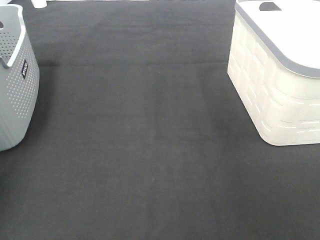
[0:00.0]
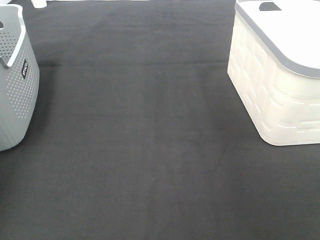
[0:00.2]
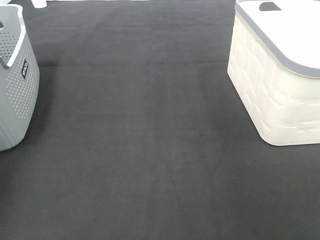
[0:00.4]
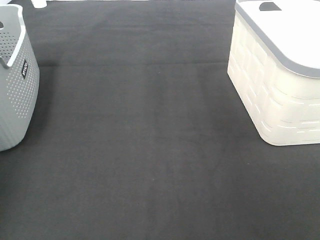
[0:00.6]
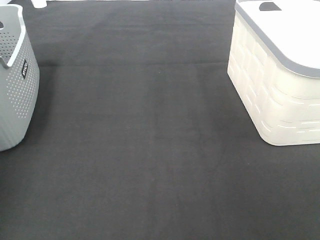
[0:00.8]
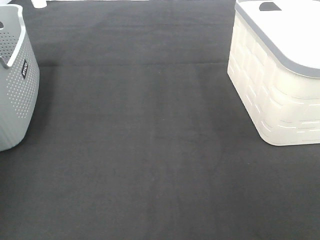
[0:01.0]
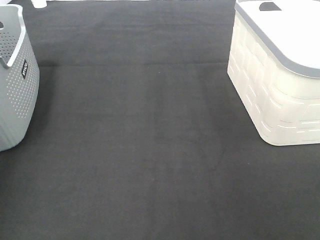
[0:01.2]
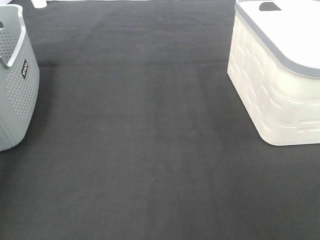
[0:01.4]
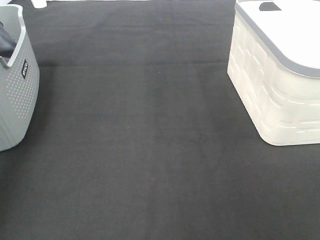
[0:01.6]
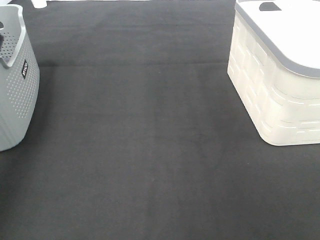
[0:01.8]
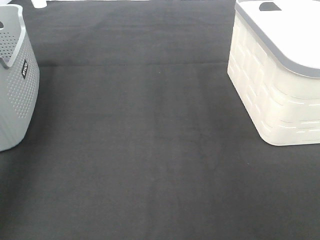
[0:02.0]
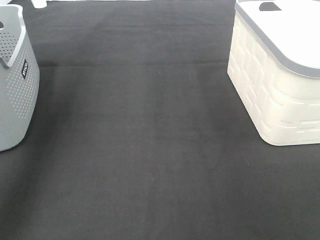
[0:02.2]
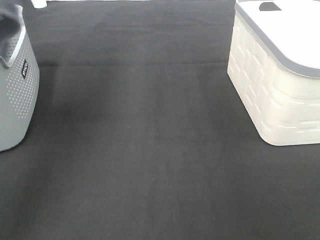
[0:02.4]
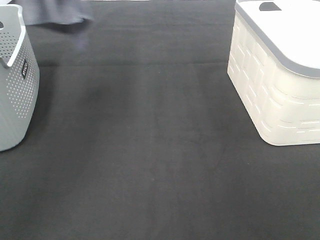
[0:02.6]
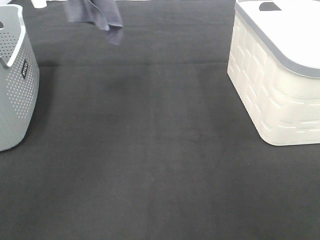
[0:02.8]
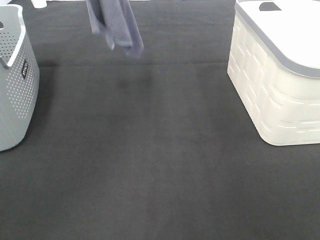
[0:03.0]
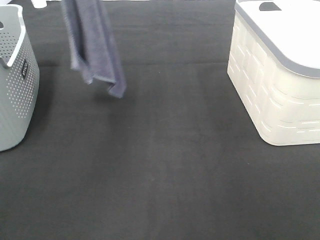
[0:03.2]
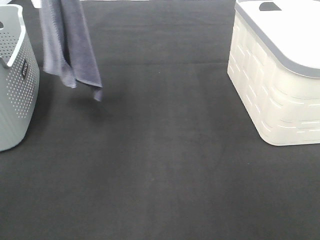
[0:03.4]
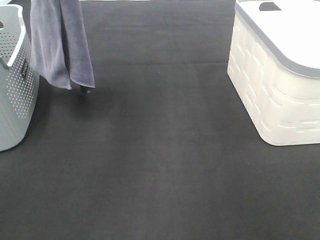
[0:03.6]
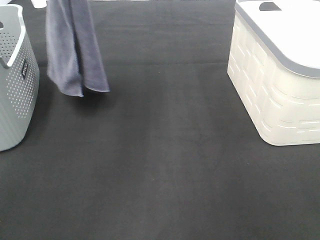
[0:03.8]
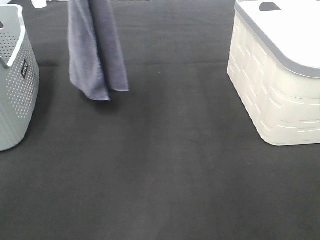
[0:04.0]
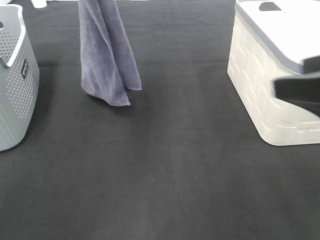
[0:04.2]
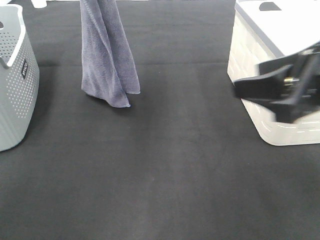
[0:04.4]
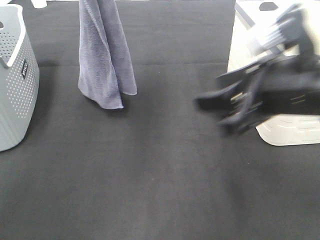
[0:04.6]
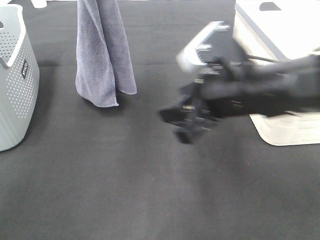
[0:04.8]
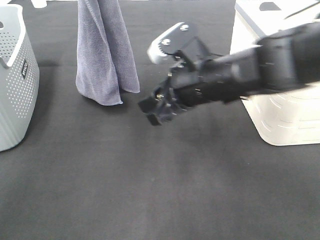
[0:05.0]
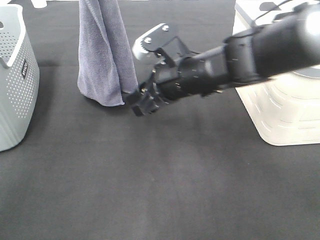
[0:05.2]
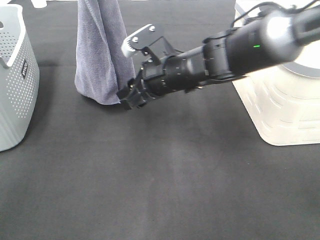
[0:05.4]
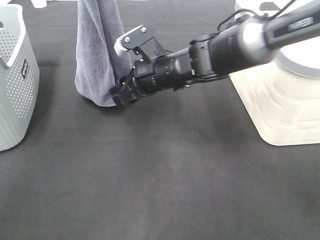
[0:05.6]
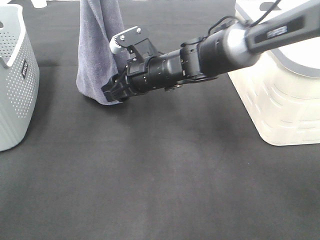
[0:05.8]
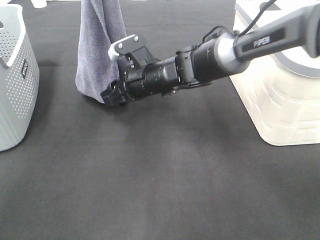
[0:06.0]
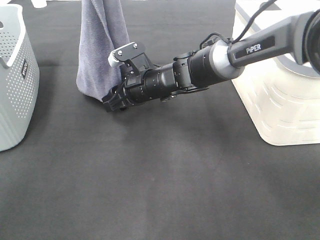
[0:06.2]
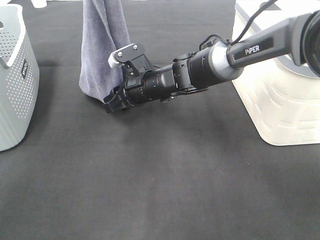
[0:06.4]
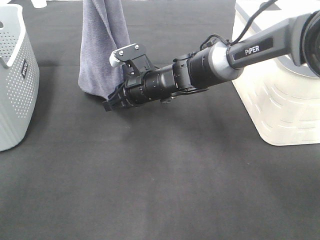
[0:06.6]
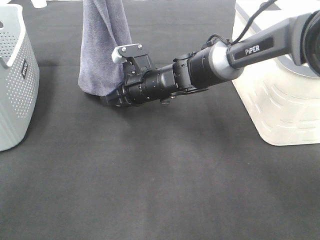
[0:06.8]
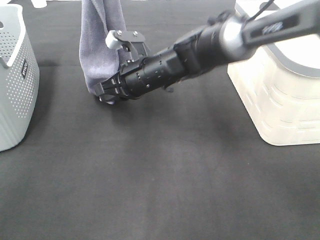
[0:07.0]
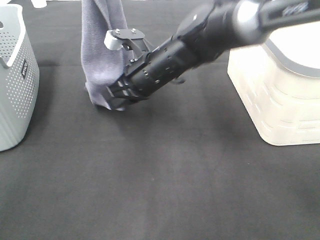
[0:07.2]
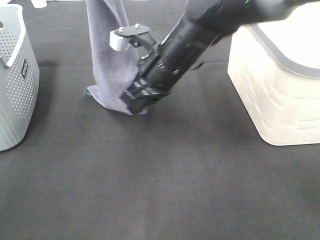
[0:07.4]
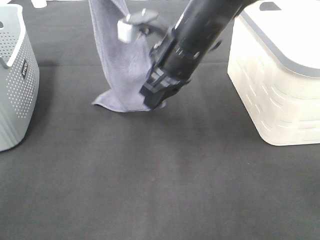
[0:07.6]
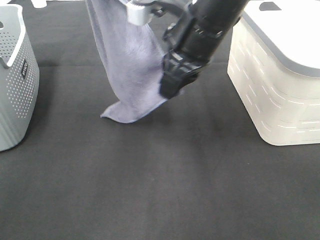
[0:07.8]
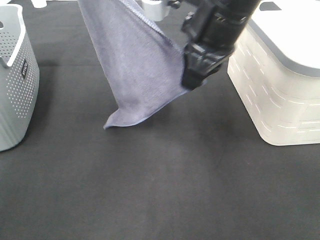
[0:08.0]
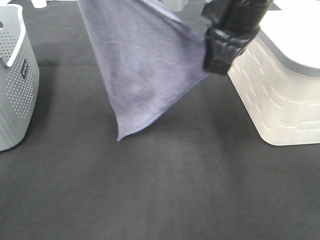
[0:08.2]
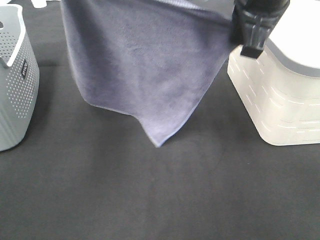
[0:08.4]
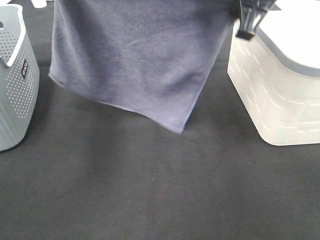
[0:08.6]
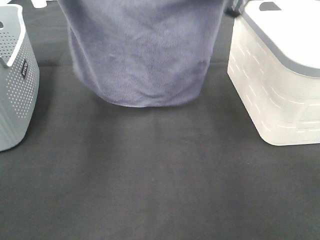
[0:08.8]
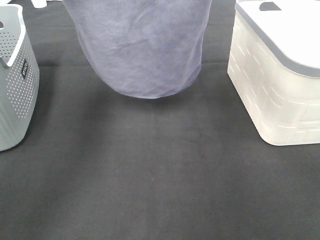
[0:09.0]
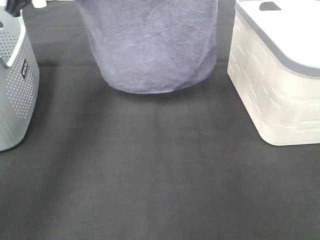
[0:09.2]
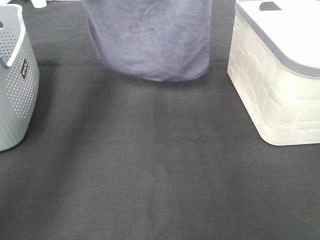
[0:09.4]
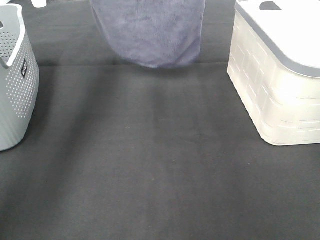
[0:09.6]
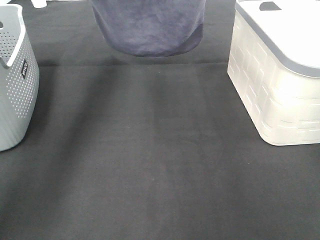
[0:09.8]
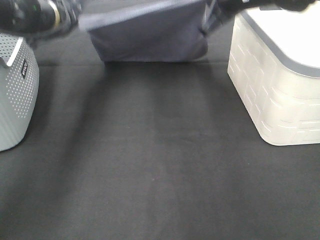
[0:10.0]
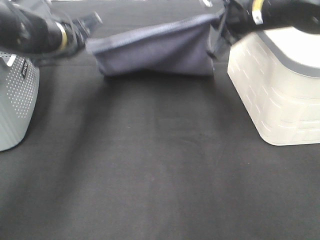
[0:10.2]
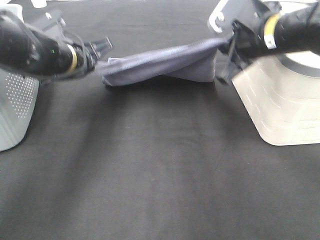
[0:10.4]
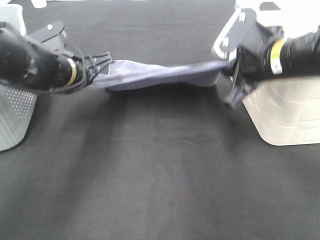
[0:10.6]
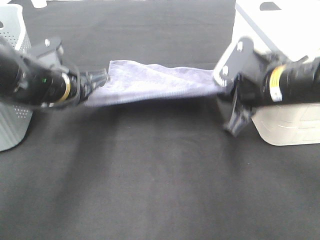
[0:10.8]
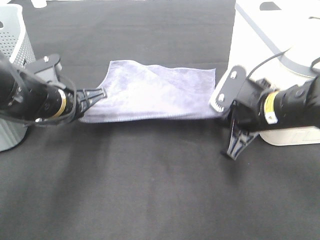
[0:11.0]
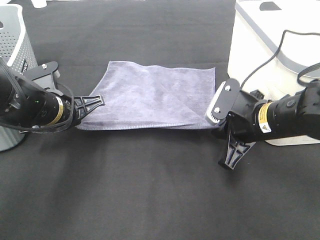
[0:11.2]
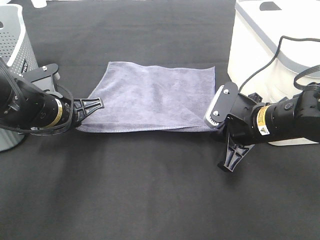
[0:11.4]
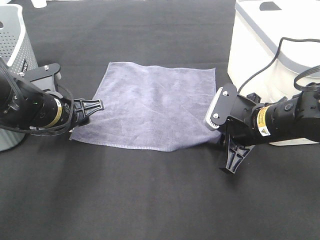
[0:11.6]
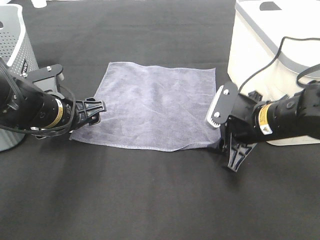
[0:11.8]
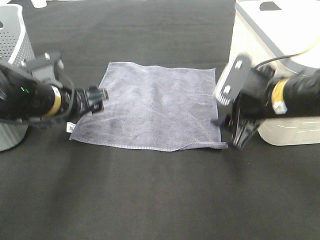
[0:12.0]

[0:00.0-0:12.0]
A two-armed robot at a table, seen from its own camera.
Task of the whole recording: Remove the towel and place it.
Step, 0:02.0 to 0:05.4: Right hand: grab a corner of the grey towel and straighten it.
Step, 0:05.6 to 0:07.8: Left hand: spread the grey towel flat on the table.
Step, 0:05.6 to 0:07.8: Right hand: spread the grey towel flat on the table.
0:00.0 to 0:01.6: The left gripper goes roughly 35 cm upward and backward.
0:01.6 to 0:03.0: The left gripper travels to the right by approximately 20 cm.
0:03.0 to 0:04.4: The left gripper moves downward and to the right, approximately 10 cm; the right gripper moves forward and to the left, approximately 20 cm.
0:04.4 to 0:06.0: The right gripper goes roughly 35 cm forward, to the left and downward.
0:06.0 to 0:07.6: The right gripper shifts approximately 15 cm upward and backward, and closes.
0:07.6 to 0:09.0: The right gripper travels upward and to the right by some 15 cm, while the left gripper heads downward and to the left, covering some 10 cm.
0:09.0 to 0:10.4: Both grippers travel together downward, some 15 cm.
0:10.4 to 0:12.0: Both grippers travel together backward, roughly 5 cm. The right gripper opens up. The left gripper opens up.

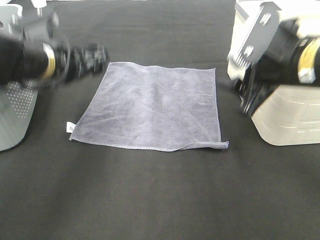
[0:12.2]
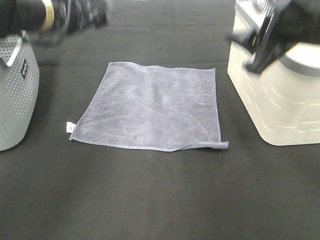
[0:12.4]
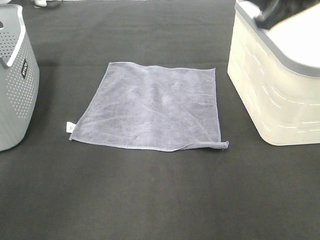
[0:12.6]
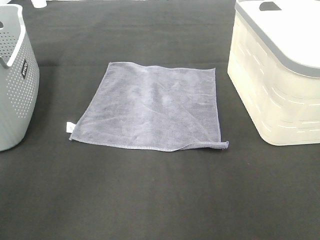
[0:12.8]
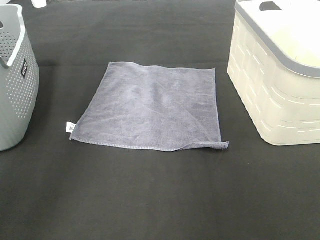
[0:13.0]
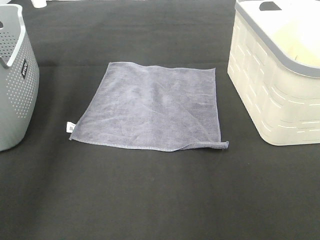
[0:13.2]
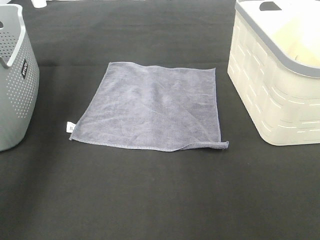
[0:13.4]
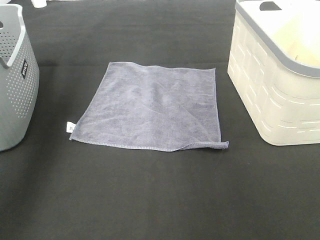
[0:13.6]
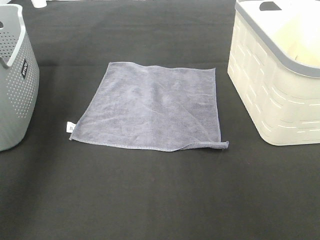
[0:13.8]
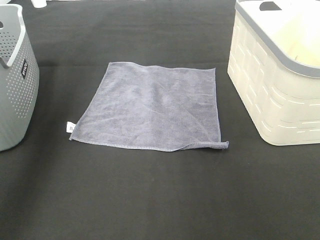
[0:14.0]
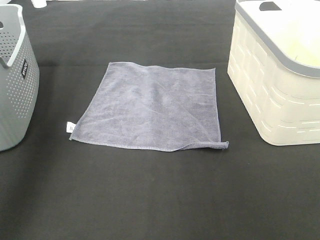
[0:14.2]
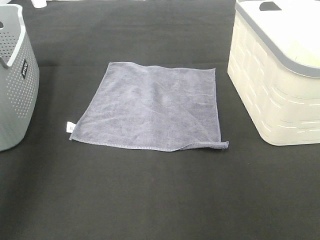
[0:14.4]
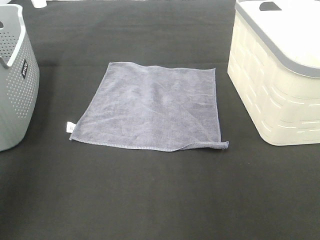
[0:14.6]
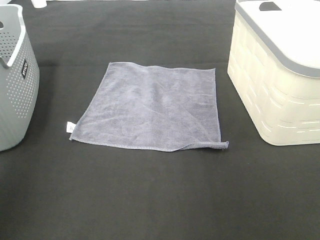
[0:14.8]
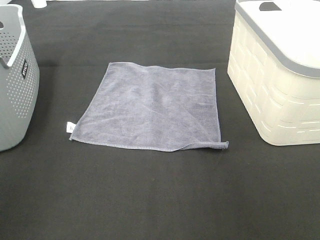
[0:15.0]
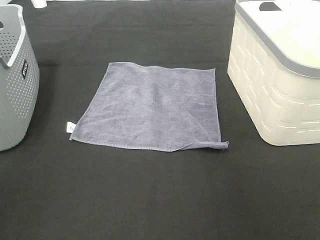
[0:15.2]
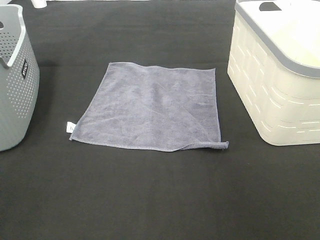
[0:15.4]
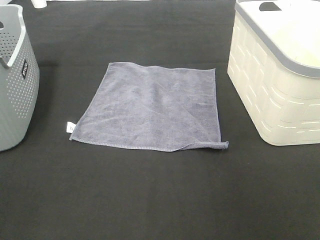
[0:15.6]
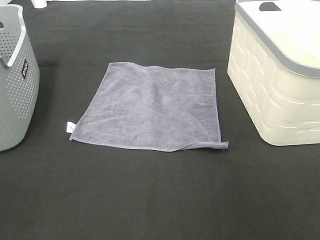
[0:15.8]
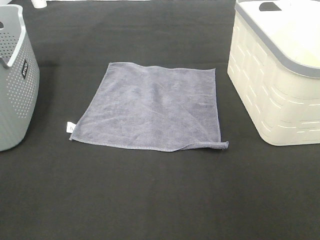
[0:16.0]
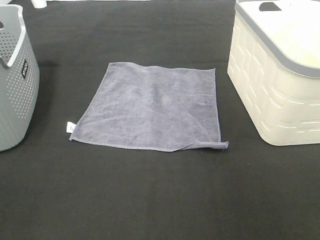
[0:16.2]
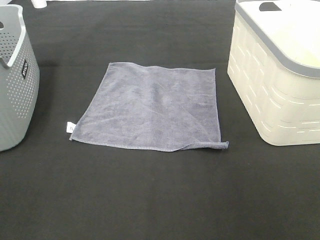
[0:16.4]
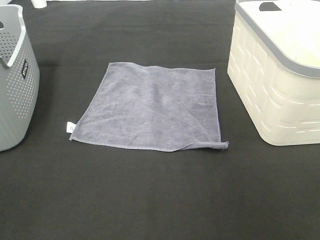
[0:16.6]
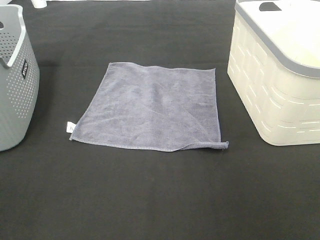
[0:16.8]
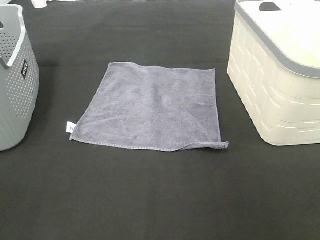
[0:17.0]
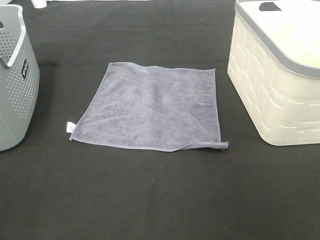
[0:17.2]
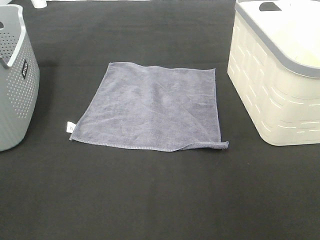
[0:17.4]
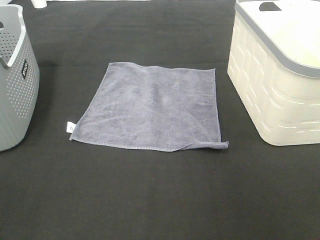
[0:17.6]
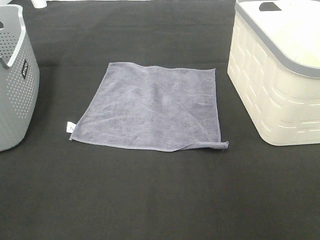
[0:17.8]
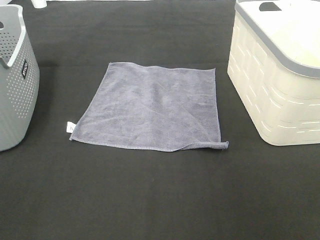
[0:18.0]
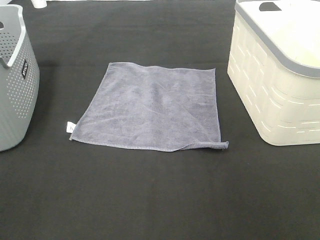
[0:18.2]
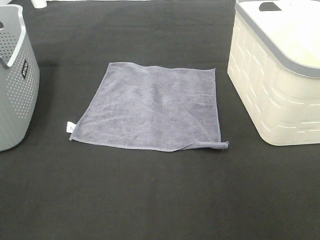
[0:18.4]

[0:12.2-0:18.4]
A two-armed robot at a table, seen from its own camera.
Task of the whole recording: Remove the towel and place it.
0:12.2 to 0:13.8: The left gripper shifts some 25 cm upward and to the left. The right gripper shifts approximately 20 cm upward, forward and to the right.
0:13.8 to 0:15.4: The left gripper heads backward, covering roughly 35 cm.
0:16.8 to 0:18.4: Both grippers stay about where they are.
